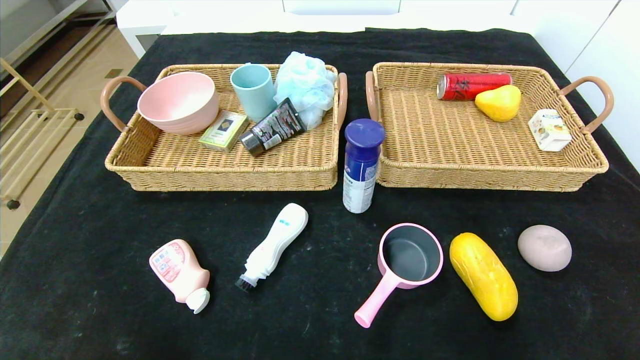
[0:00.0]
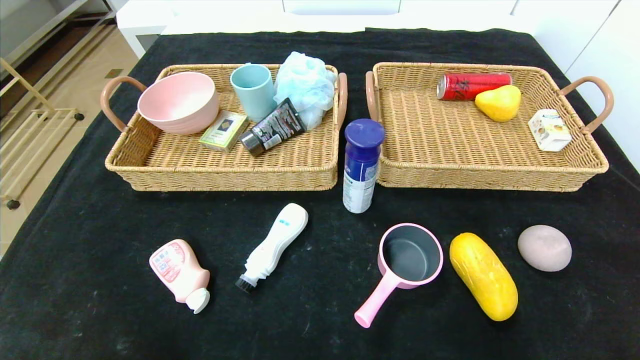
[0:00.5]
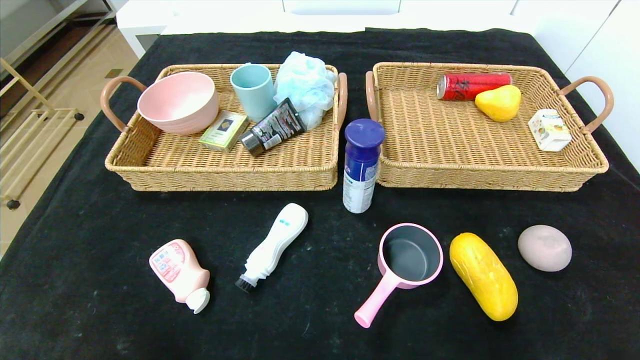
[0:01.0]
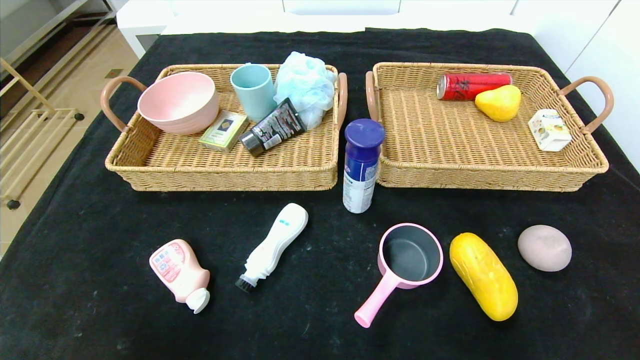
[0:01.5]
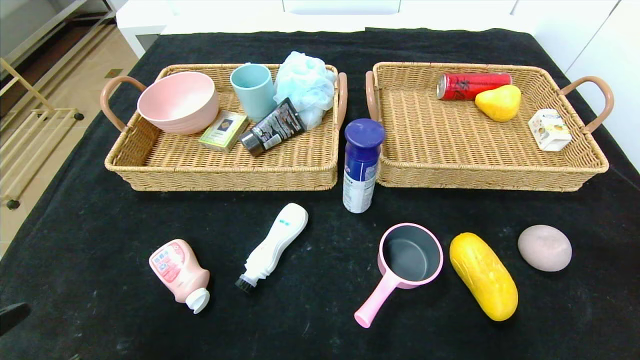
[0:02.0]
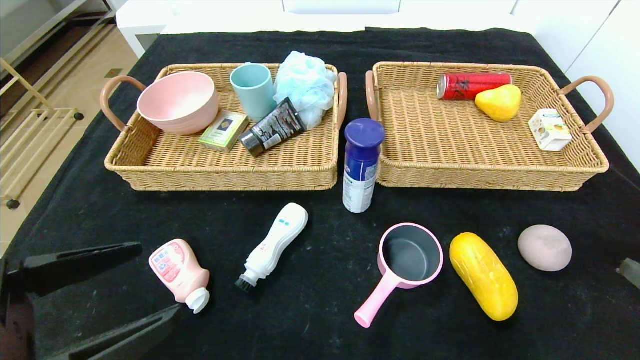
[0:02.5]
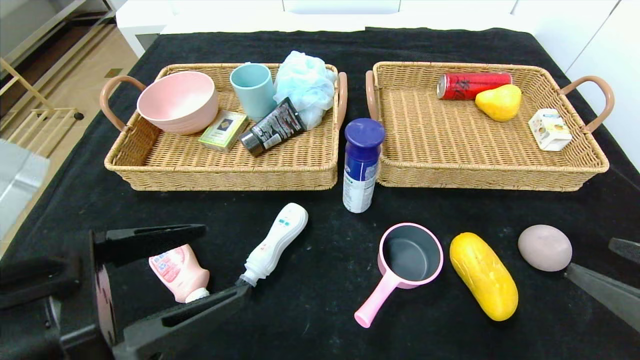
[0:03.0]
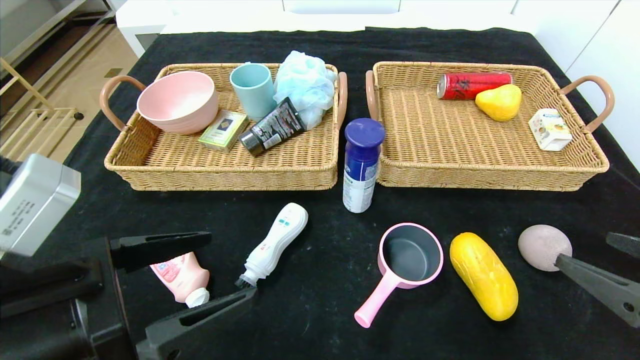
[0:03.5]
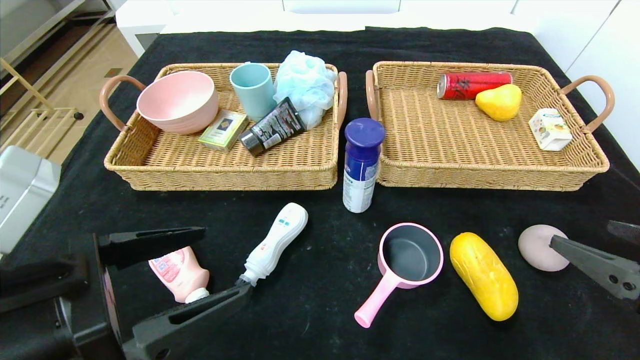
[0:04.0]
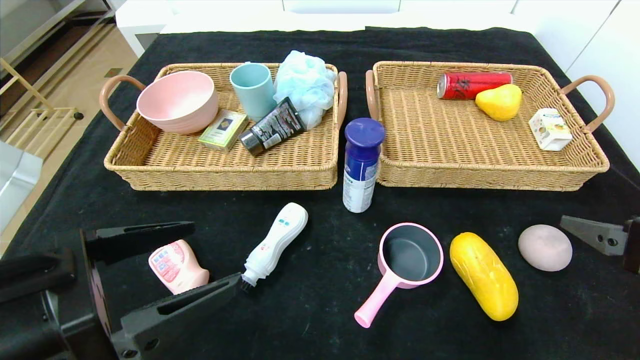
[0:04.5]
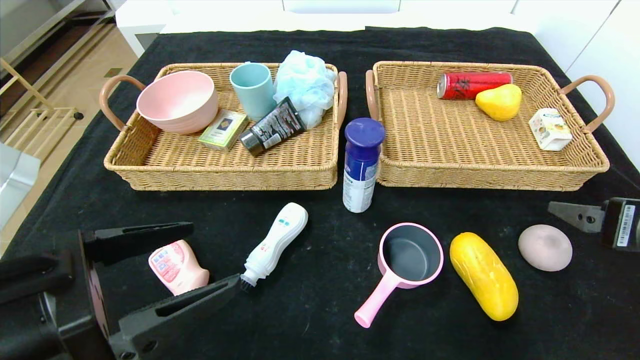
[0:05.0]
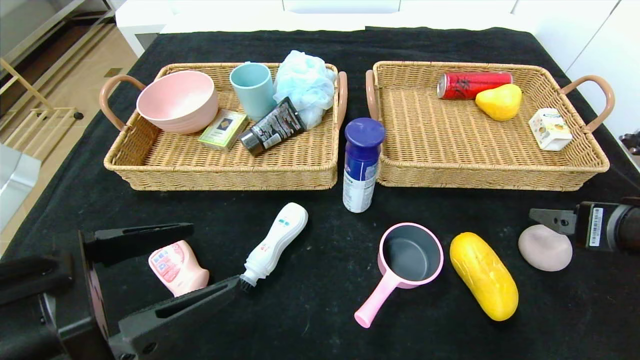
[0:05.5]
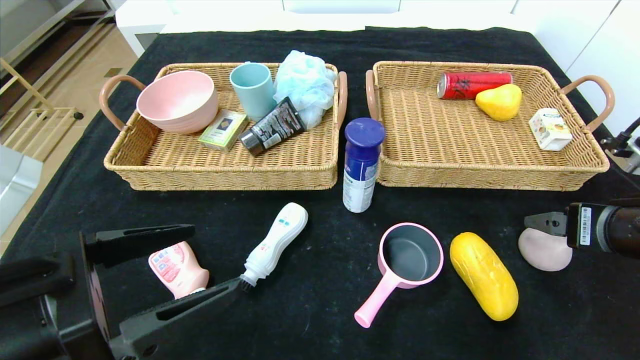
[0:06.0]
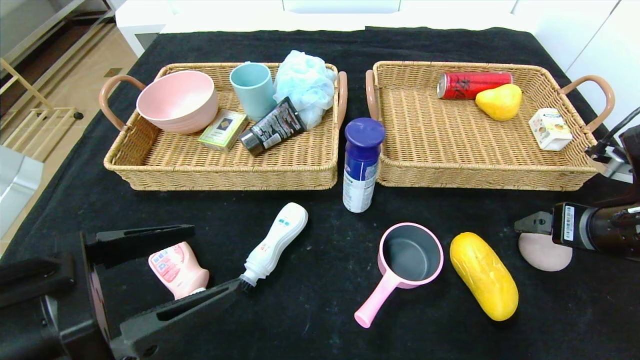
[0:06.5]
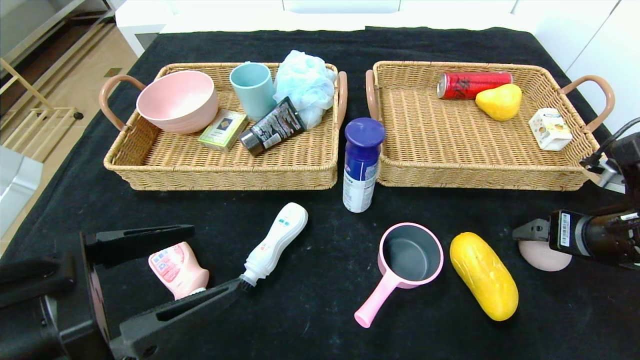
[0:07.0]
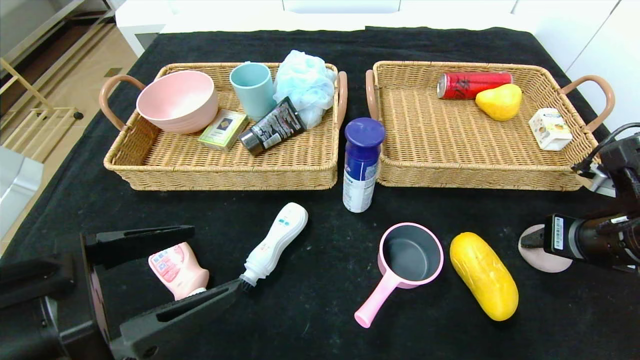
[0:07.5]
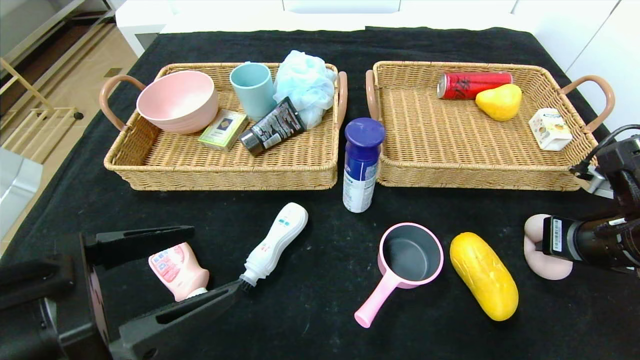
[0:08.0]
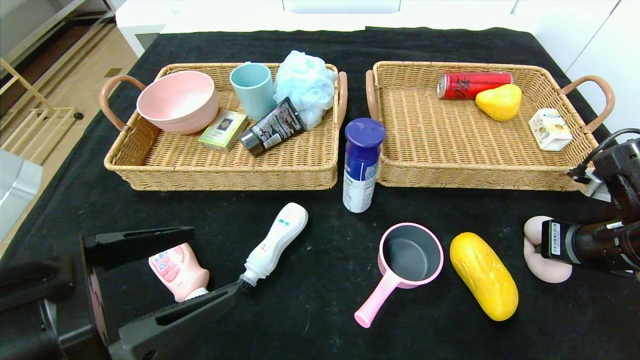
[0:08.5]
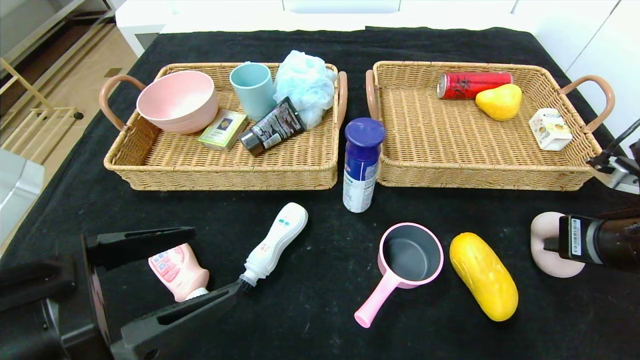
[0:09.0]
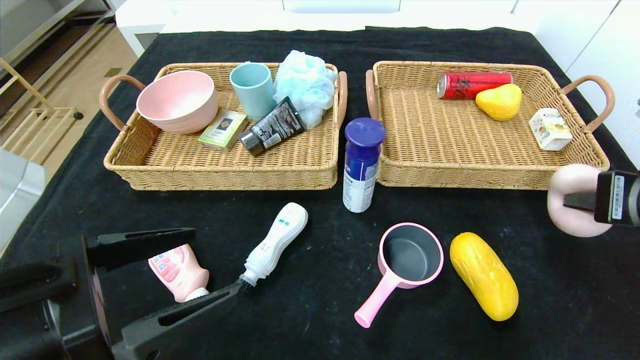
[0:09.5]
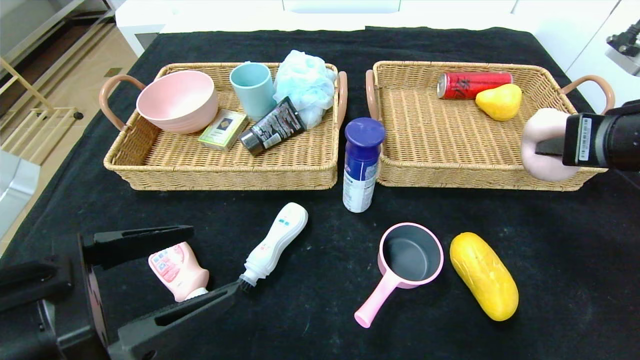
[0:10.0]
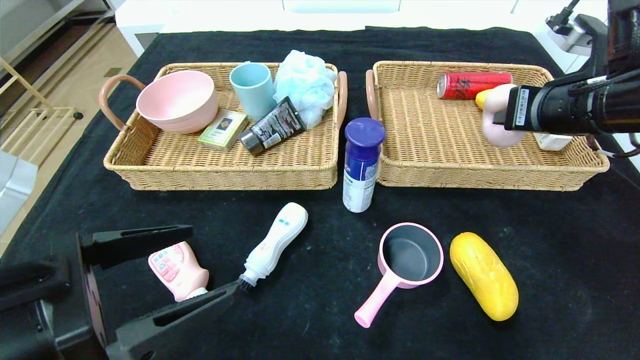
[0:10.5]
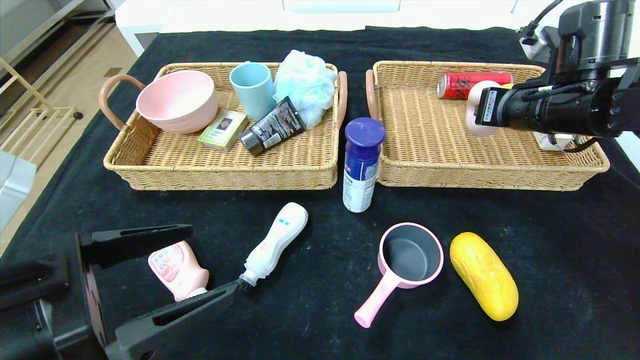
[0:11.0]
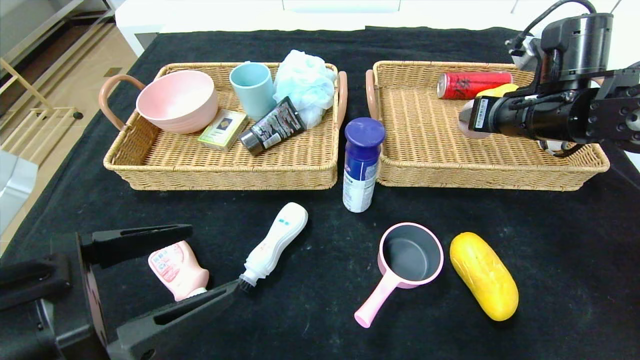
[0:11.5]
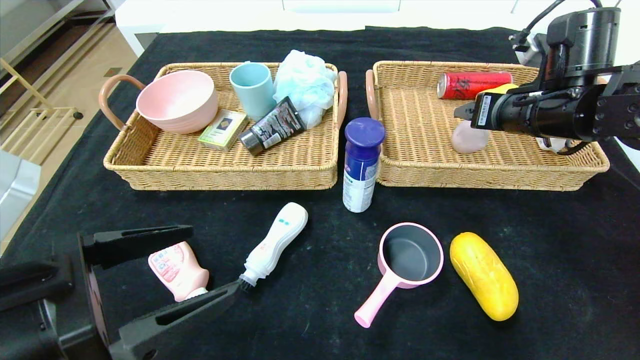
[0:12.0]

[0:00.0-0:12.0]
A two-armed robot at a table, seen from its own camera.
2.0 to 4.0 s: The right gripper travels forward by approximately 10 cm, while the left gripper heads forward and to the right, covering roughly 10 cm.
4.0 to 6.0 s: The right gripper travels forward by some 10 cm.
6.0 to 8.0 s: The right gripper closes its fingers.
8.0 to 10.0 s: The right gripper heads upward, covering approximately 10 cm.
10.0 to 12.0 s: The right gripper travels forward by roughly 15 cm, and opens.

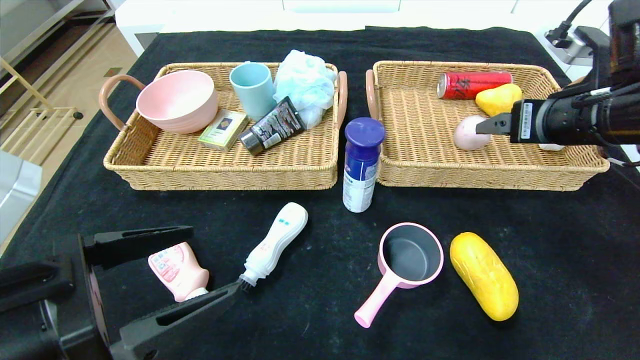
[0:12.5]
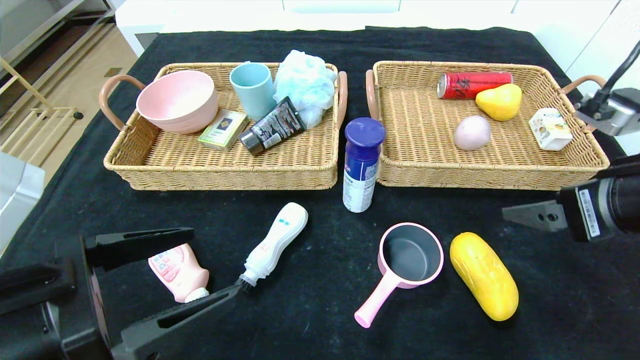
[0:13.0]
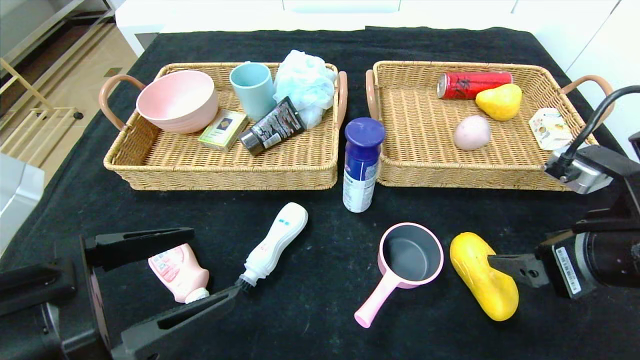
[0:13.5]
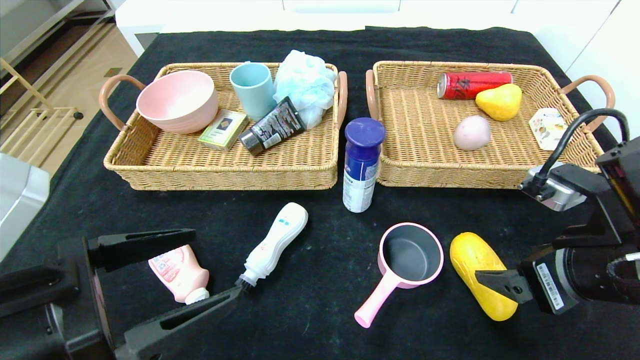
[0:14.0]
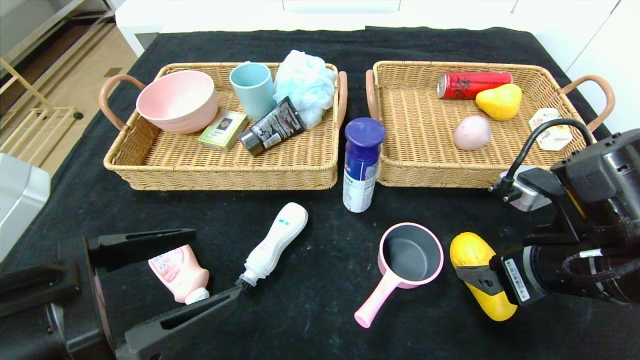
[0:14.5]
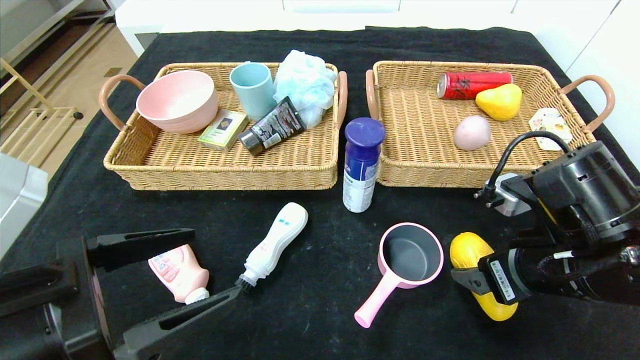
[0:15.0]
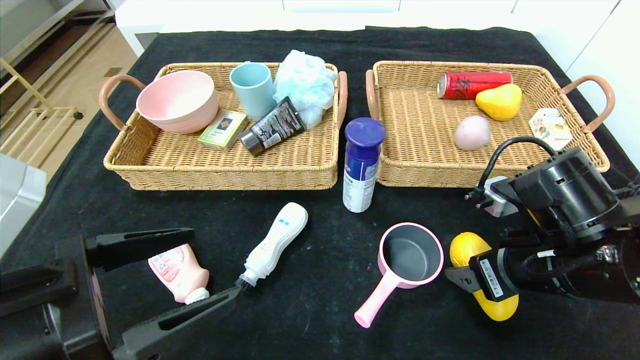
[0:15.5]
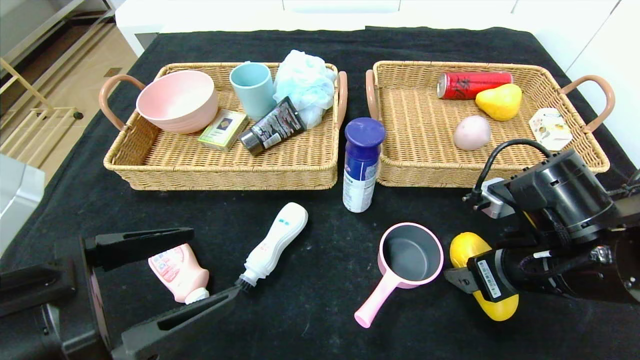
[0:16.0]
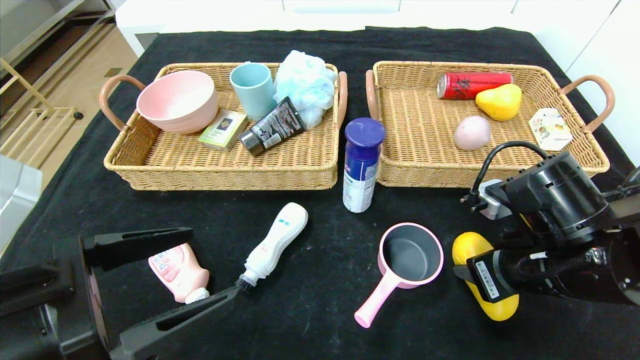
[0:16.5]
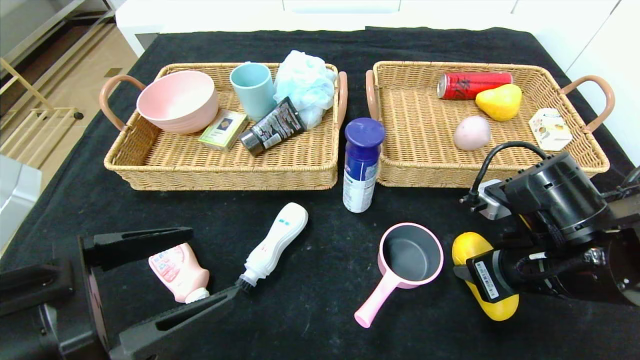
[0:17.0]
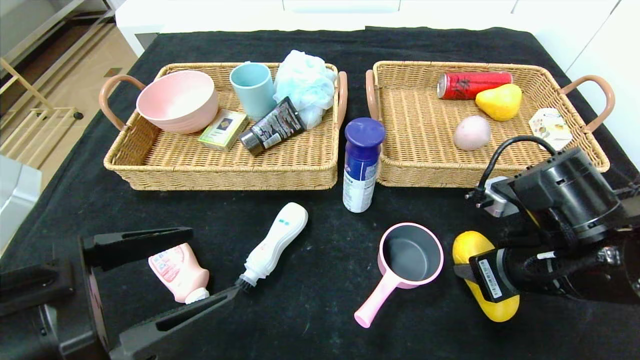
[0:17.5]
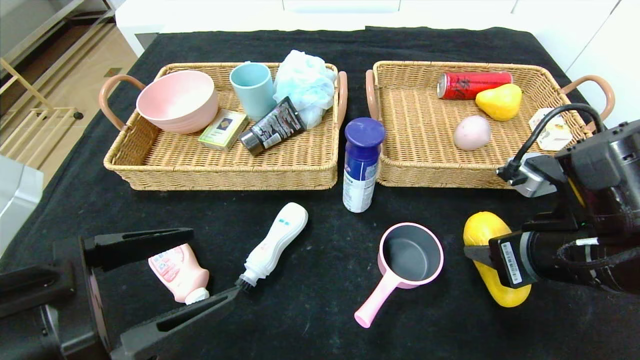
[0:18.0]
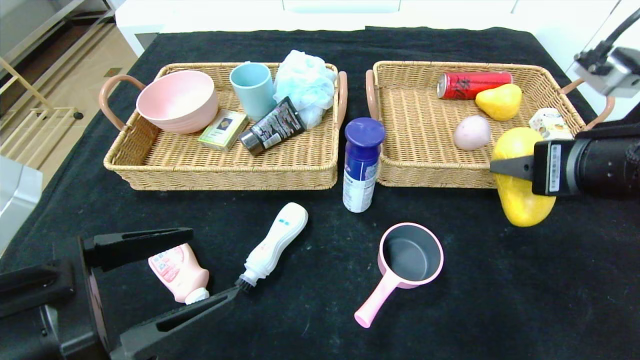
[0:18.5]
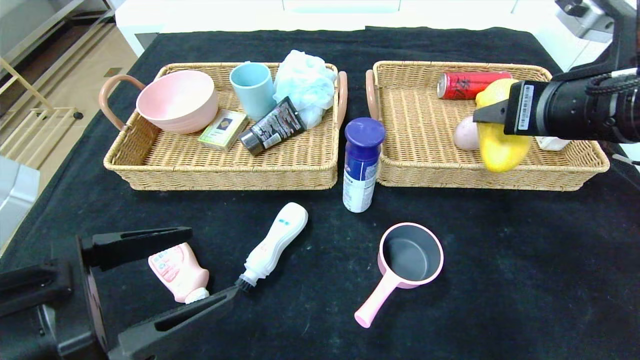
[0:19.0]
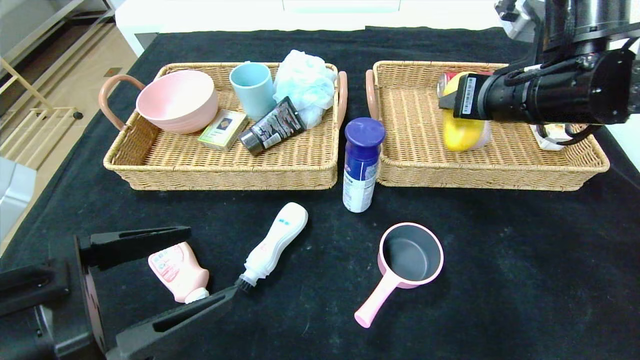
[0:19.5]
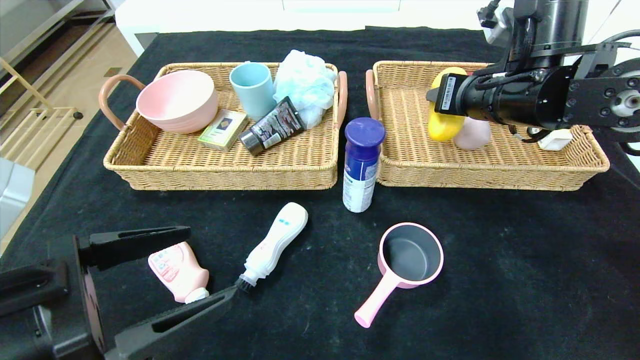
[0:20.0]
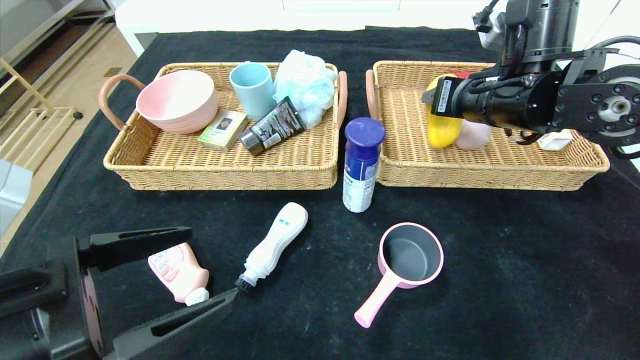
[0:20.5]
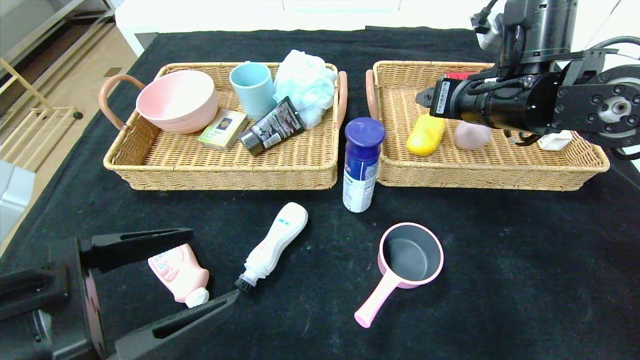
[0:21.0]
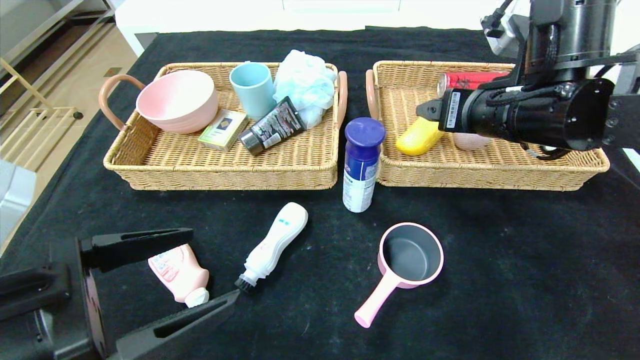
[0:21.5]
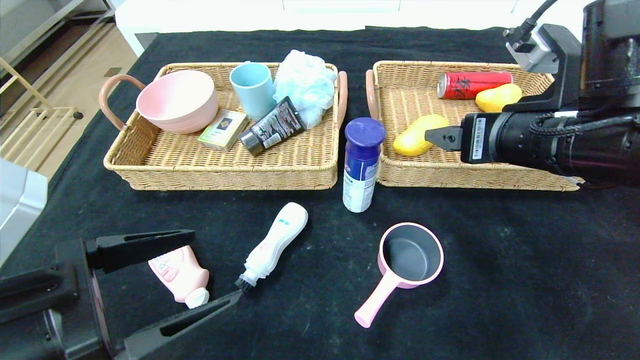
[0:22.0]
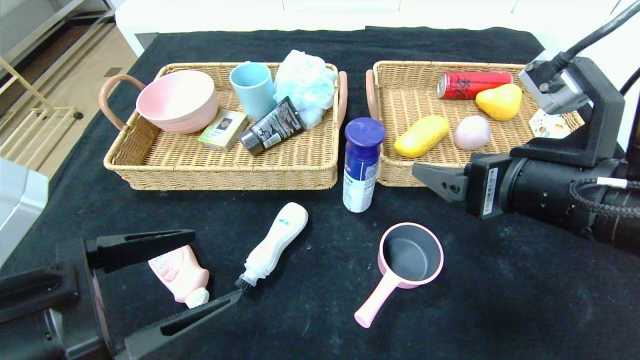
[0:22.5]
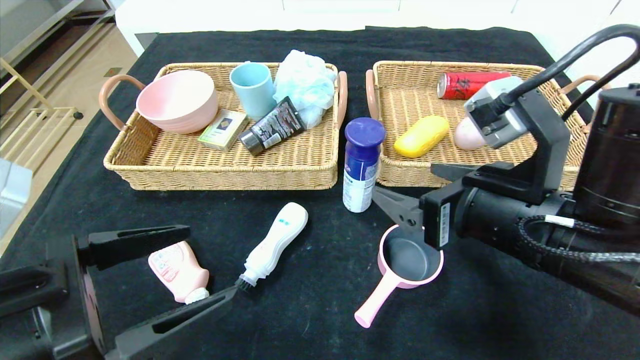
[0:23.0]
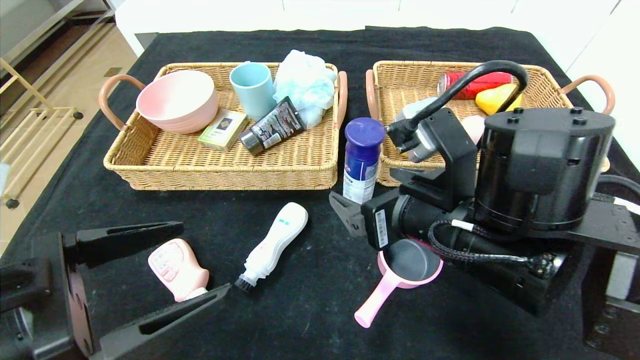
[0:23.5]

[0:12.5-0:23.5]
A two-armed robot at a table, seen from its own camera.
Step, 12.5 to 21.0 s: Grasp the mango and put it in the right basket.
12.5 to 14.5 s: The right gripper travels downward and backward by roughly 15 cm.
14.5 to 16.0 s: The grippers stay close to where they were, moving slightly.
16.0 to 18.0 s: The right gripper closes its fingers.
18.0 to 20.0 s: The right gripper moves forward and upward, some 15 cm.
20.0 to 21.5 s: The right gripper opens.
21.5 to 23.5 s: The right gripper is displaced backward, to the left and downward by approximately 15 cm.
